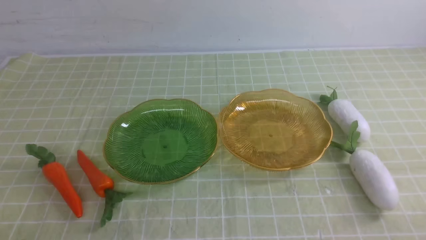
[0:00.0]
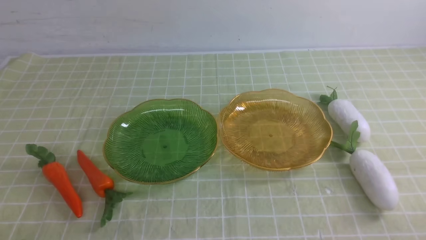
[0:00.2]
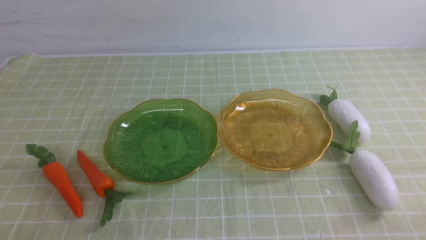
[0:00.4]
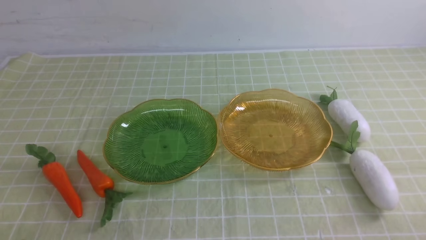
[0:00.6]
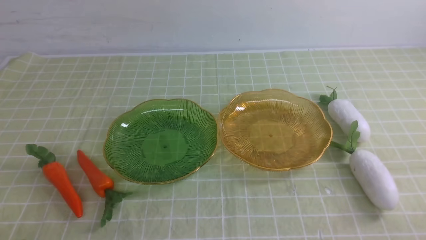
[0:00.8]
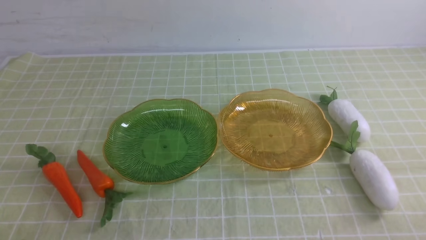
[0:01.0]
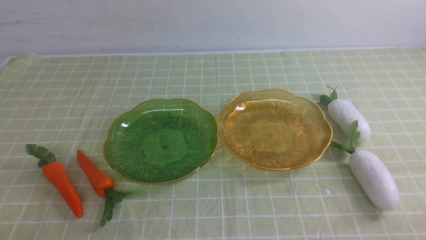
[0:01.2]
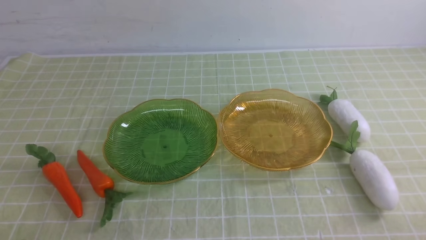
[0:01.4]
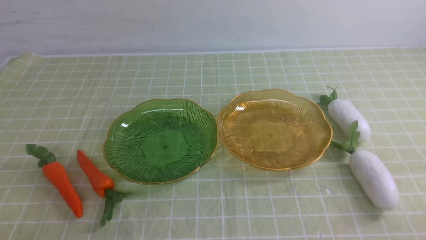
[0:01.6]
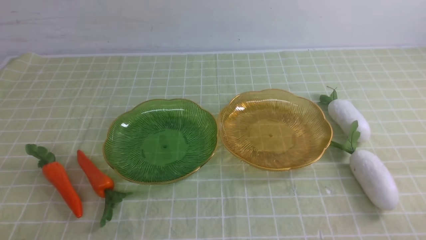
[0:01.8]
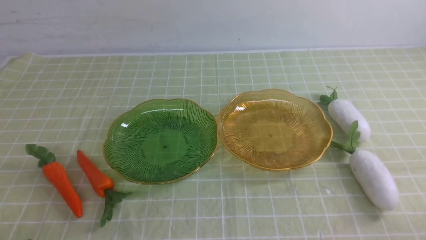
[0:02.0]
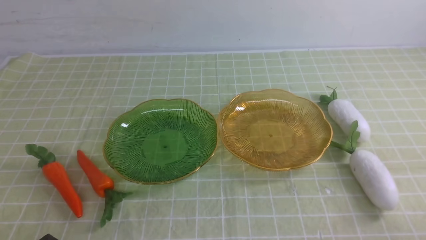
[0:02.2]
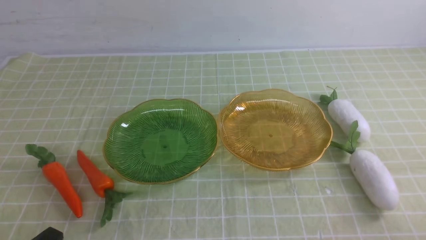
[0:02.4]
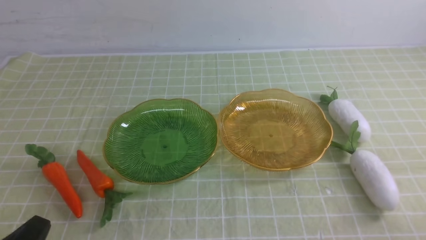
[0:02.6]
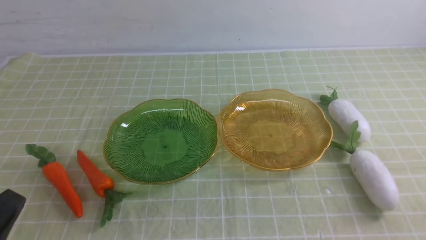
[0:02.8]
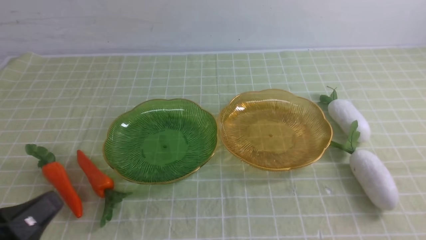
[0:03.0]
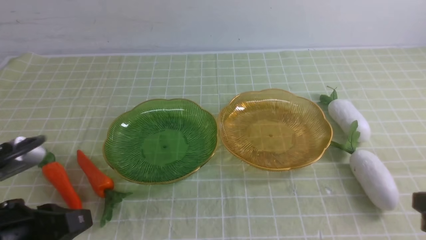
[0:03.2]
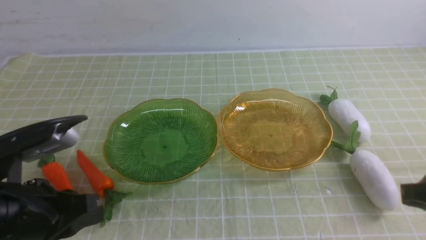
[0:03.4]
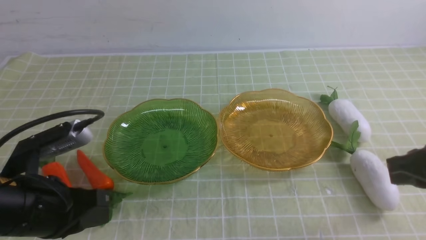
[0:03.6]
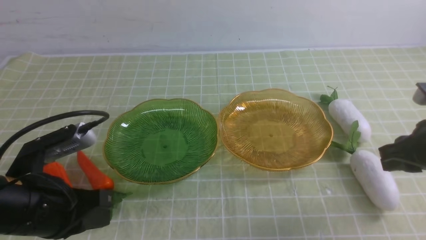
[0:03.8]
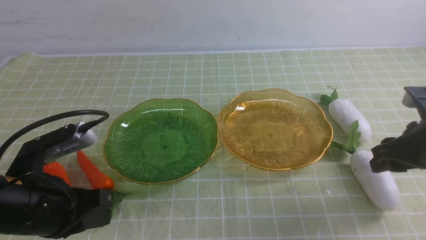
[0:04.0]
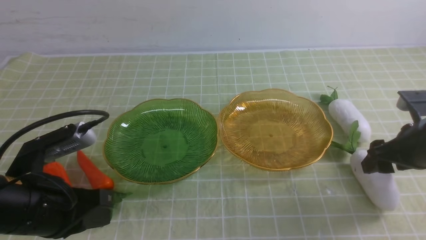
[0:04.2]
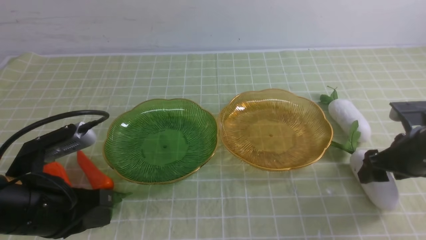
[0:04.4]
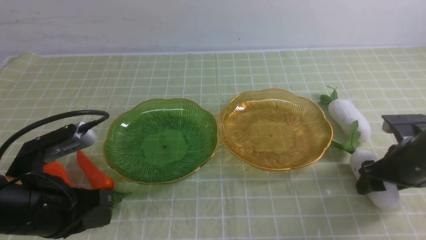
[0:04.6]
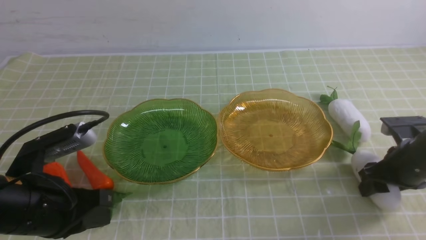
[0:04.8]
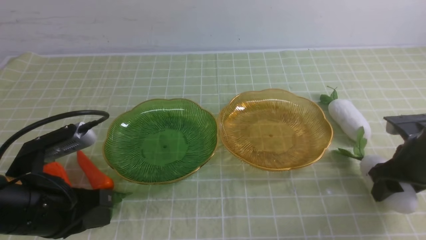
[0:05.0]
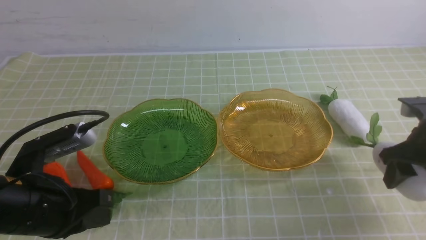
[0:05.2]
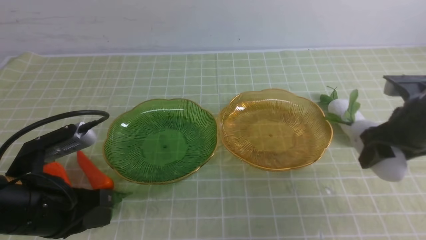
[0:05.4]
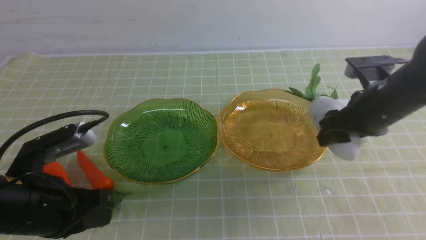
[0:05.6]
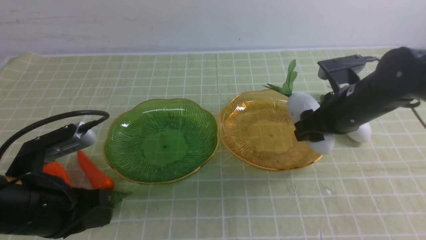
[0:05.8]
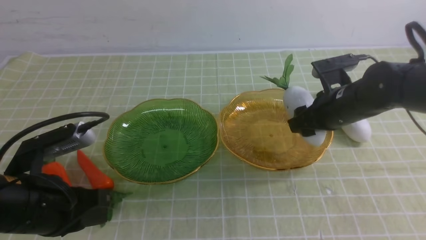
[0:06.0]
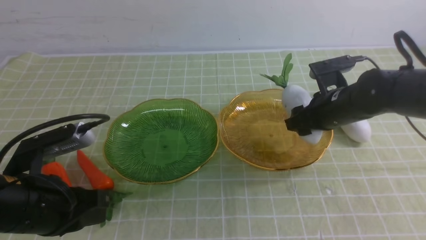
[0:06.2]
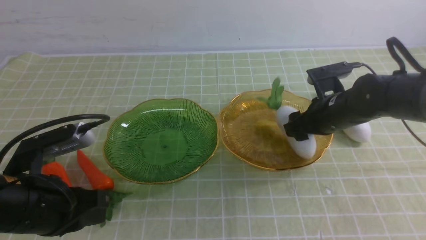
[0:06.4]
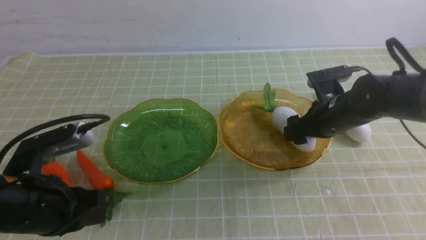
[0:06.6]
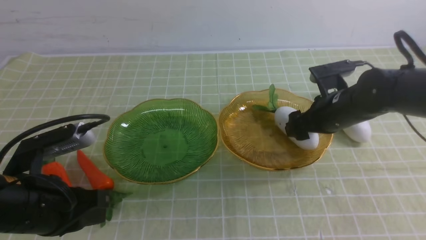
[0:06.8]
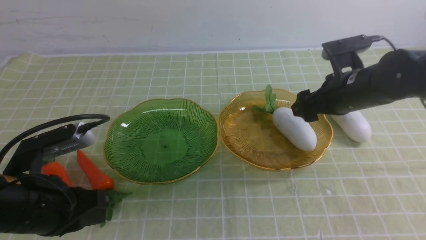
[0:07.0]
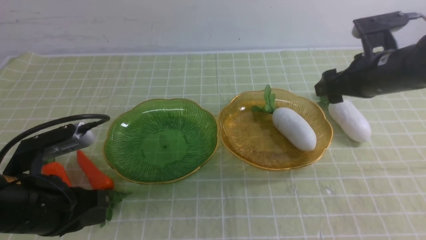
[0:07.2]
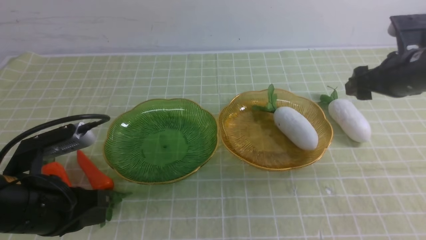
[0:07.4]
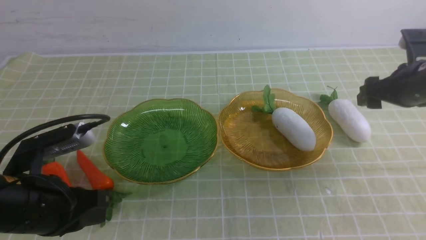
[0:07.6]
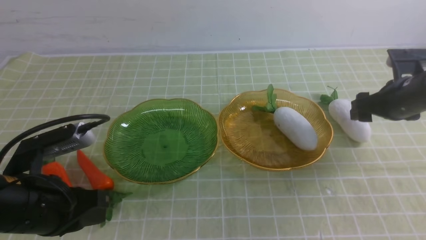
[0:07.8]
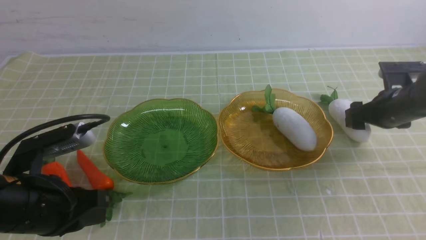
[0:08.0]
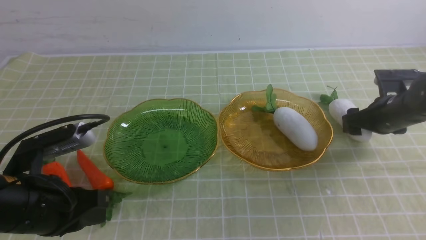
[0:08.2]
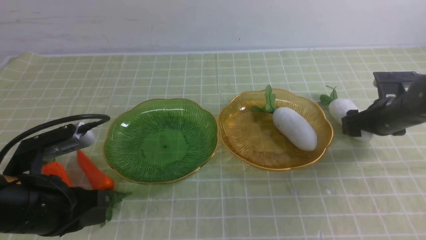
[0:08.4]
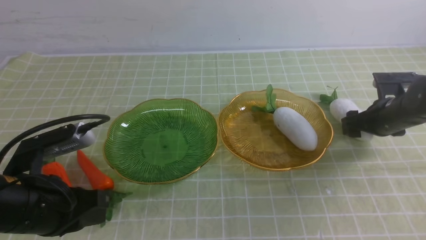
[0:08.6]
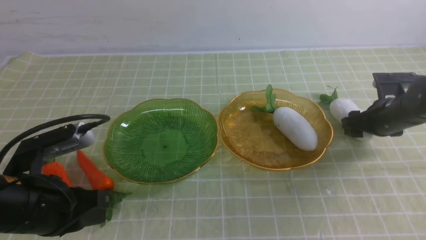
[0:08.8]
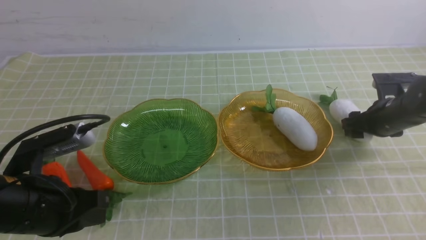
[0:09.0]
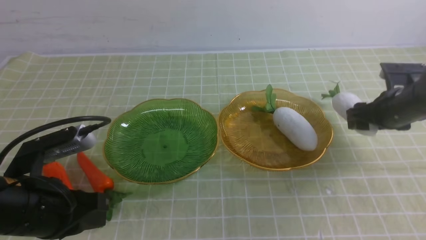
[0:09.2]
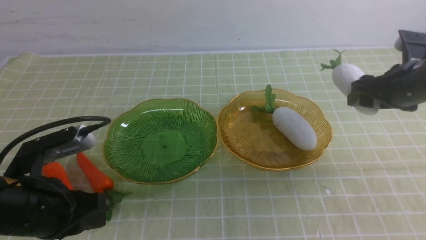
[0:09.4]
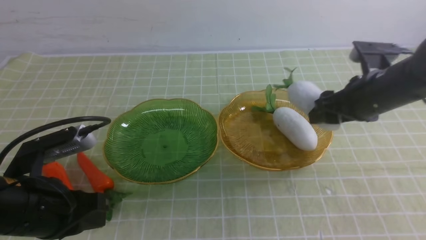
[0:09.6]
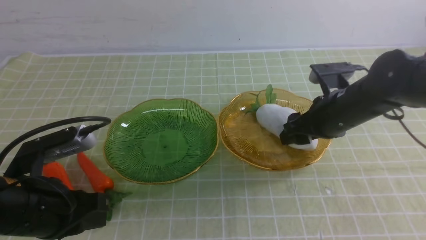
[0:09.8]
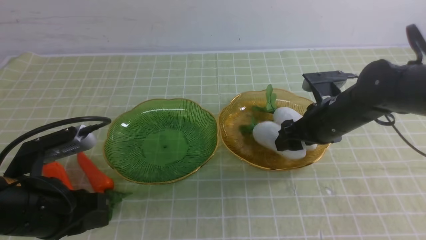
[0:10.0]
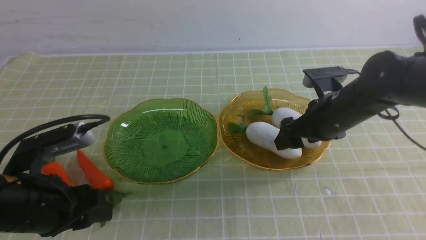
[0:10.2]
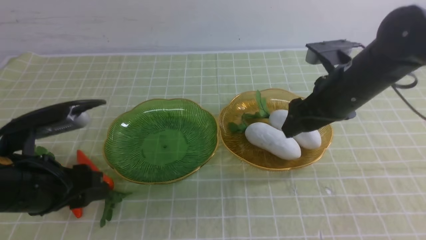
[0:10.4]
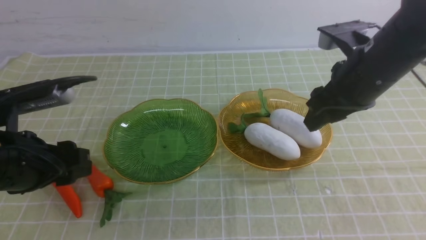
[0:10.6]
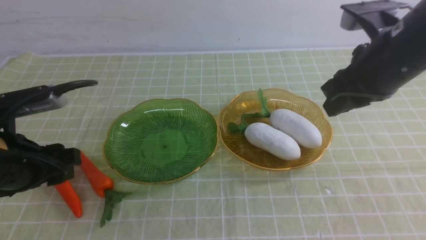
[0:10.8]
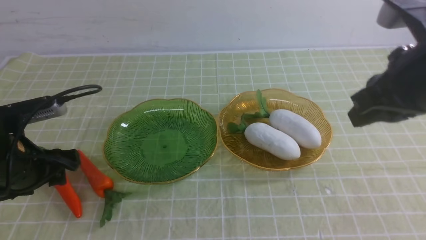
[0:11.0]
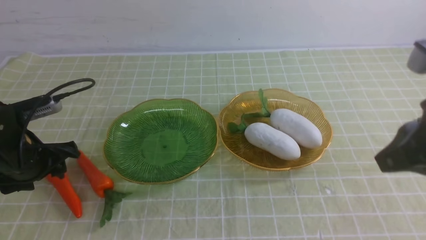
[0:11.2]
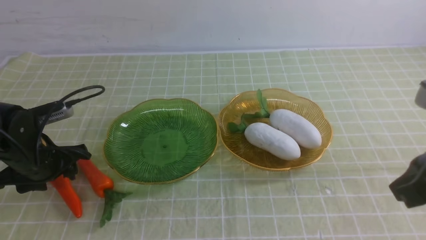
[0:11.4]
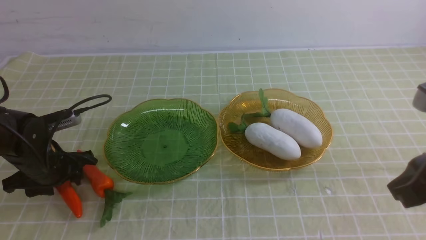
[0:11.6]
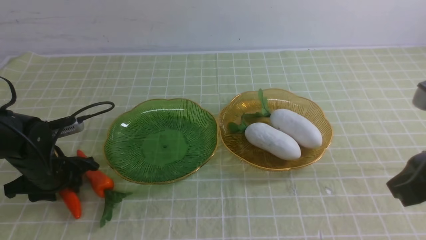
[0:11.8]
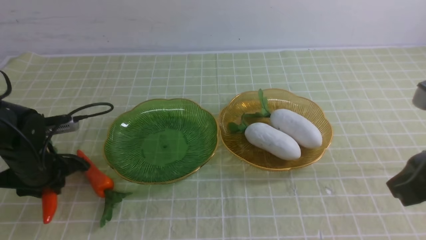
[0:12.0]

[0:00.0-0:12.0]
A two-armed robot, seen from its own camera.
0:01.6 to 0:03.0: The left gripper shifts roughly 10 cm upward.
0:03.0 to 0:04.4: The right gripper is displaced forward by roughly 25 cm, and opens up; the left gripper moves forward, roughly 10 cm.
0:04.4 to 0:06.0: The right gripper moves to the left and forward, roughly 10 cm.
0:06.0 to 0:07.6: The right gripper travels to the right by roughly 10 cm.
0:07.6 to 0:09.0: The right gripper heads downward, covering approximately 10 cm.
0:09.0 to 0:10.4: The right gripper shifts roughly 20 cm to the left, upward and backward. Meanwhile the left gripper opens up.
0:10.4 to 0:12.0: The right gripper travels backward and upward by about 20 cm, and closes its fingers. Meanwhile the left gripper shifts approximately 15 cm forward, downward and to the left.

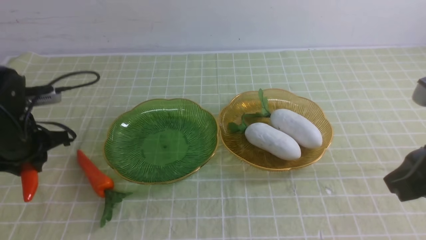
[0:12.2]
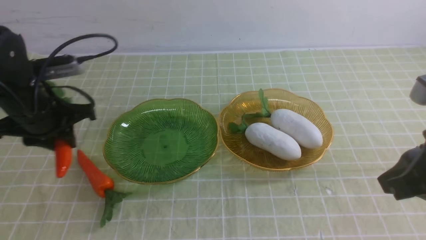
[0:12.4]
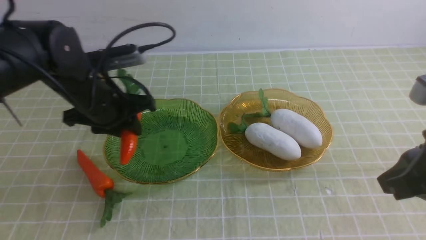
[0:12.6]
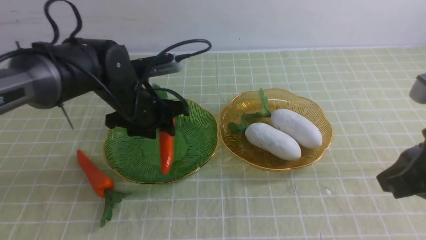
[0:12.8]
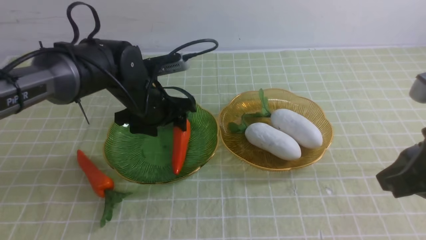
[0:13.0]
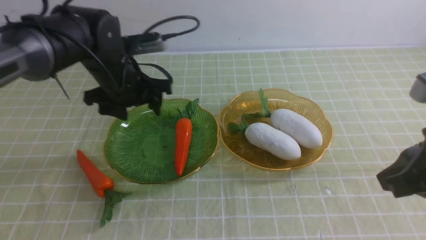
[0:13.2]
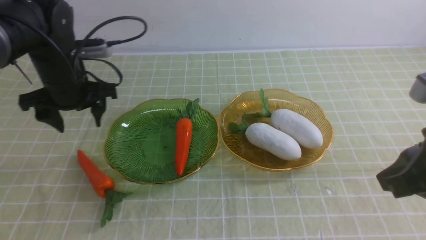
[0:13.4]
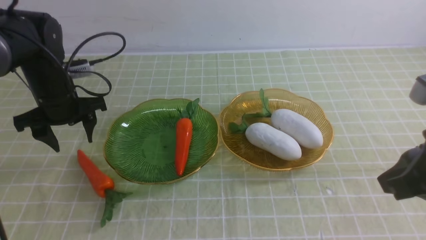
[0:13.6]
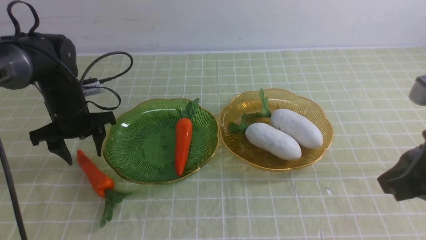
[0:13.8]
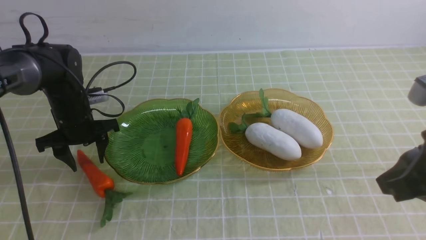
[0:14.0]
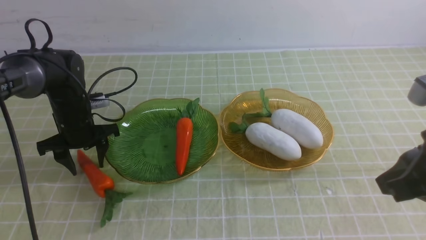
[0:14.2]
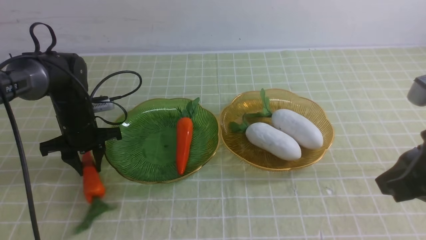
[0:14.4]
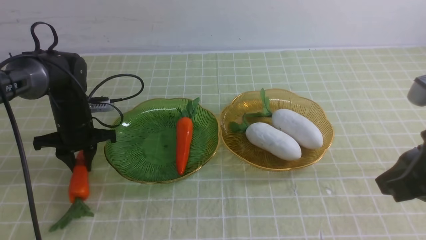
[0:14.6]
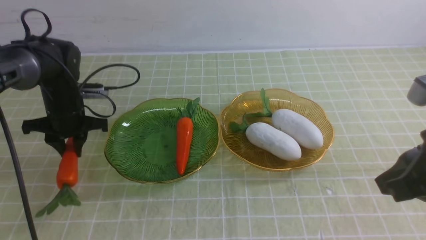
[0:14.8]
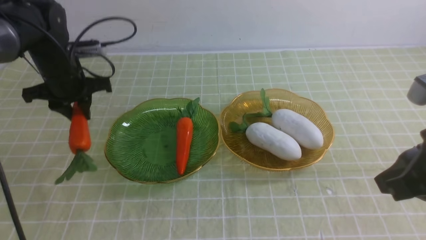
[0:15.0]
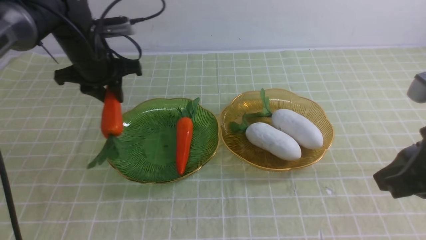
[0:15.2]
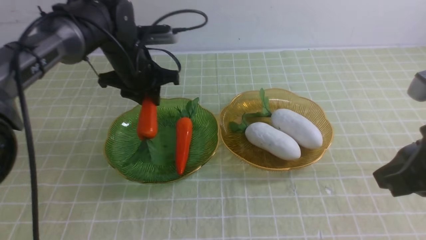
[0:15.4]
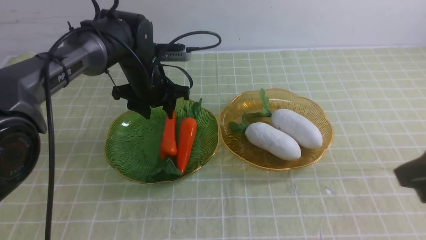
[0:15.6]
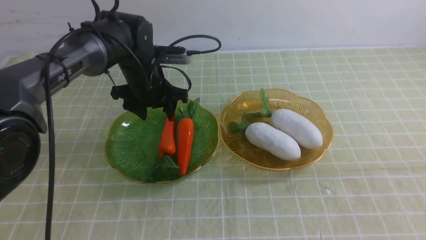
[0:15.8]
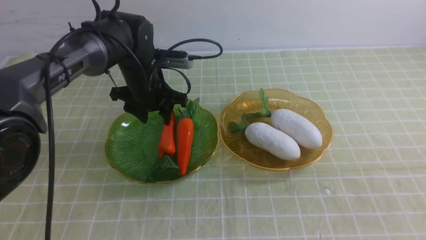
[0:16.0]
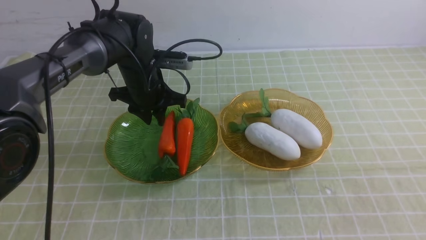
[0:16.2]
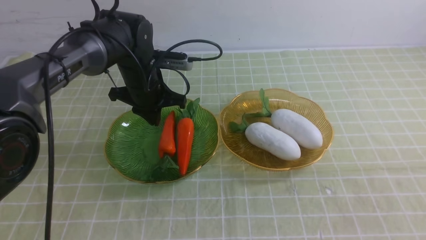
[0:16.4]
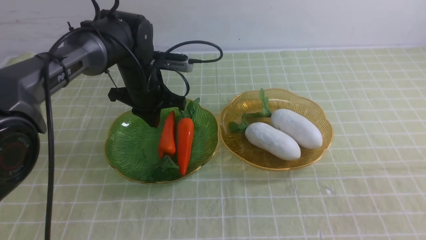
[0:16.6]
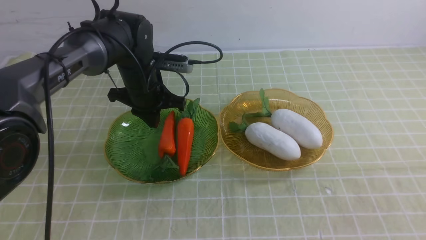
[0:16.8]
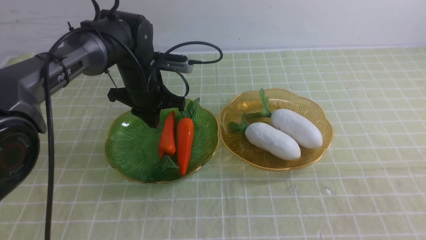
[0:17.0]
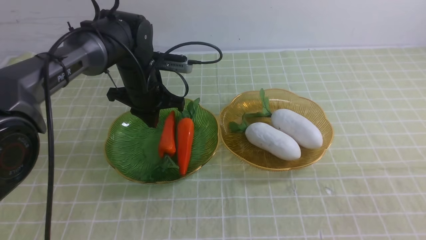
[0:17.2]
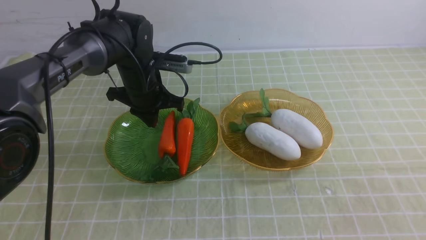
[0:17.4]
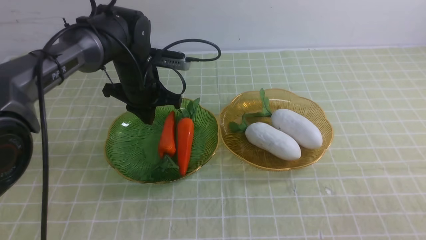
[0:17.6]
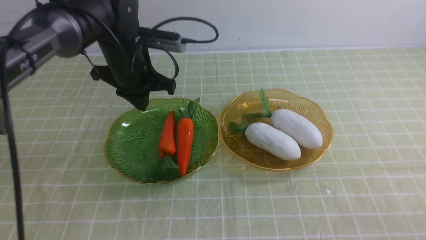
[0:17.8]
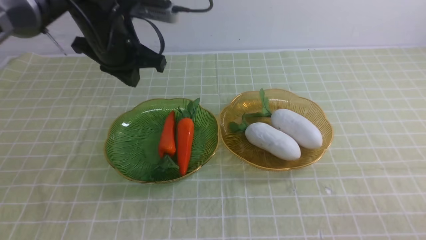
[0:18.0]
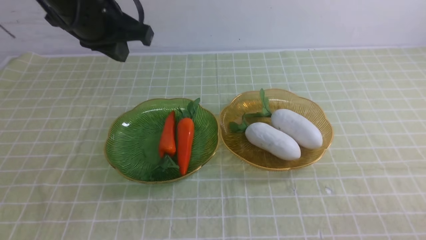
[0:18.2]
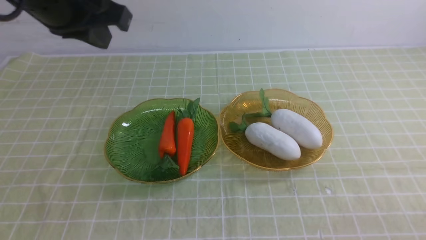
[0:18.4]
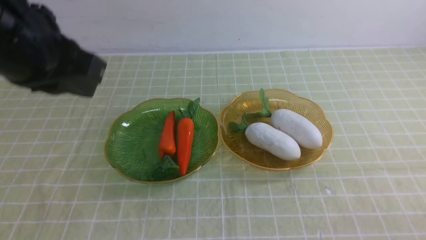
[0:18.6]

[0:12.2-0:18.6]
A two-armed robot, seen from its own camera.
Step, 0:12.4 to 0:17.6: use the left arm to grab a carrot and put it into the left plate.
0:12.2 to 0:13.8: The left gripper is displaced forward by roughly 10 cm, goes to the right and returns, some 15 cm each way, and opens up.
0:13.8 to 0:15.4: The left gripper goes approximately 10 cm to the right and upward, and closes.
0:15.4 to 0:17.0: The right gripper is displaced backward by approximately 15 cm. Meanwhile the left gripper changes place by roughly 5 cm, and closes up.
0:17.0 to 0:18.6: The left gripper heads upward and backward, covering roughly 30 cm. Meanwhile the right gripper goes roughly 15 cm downward.
